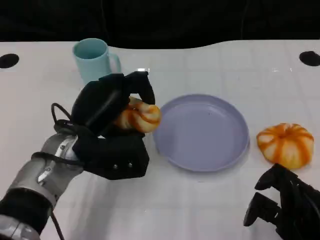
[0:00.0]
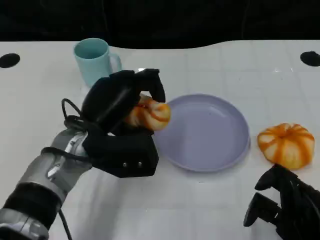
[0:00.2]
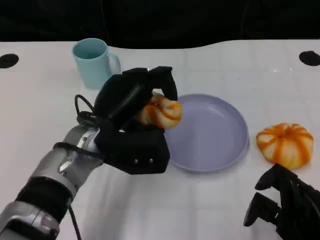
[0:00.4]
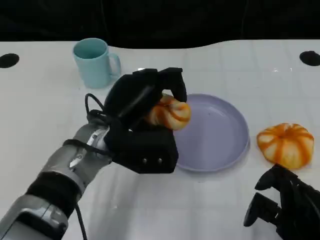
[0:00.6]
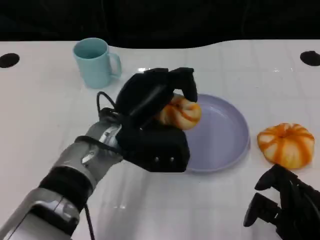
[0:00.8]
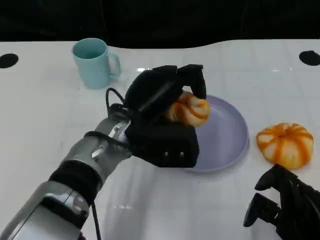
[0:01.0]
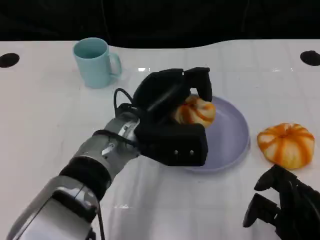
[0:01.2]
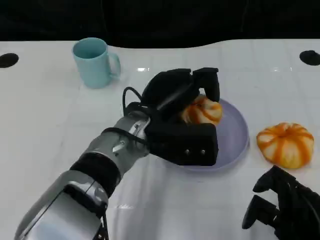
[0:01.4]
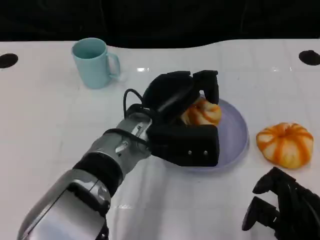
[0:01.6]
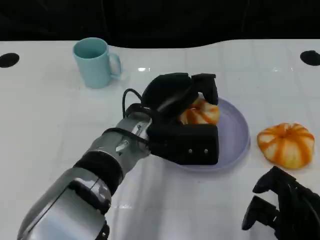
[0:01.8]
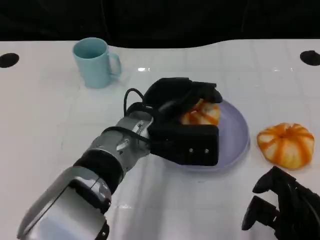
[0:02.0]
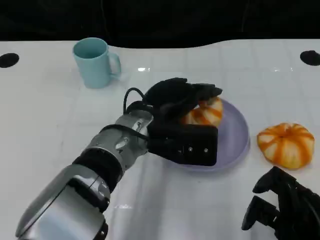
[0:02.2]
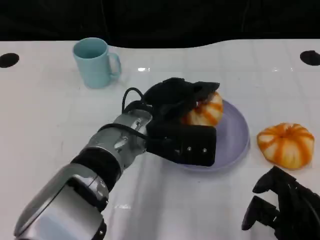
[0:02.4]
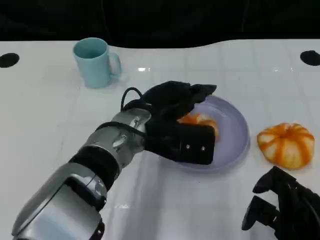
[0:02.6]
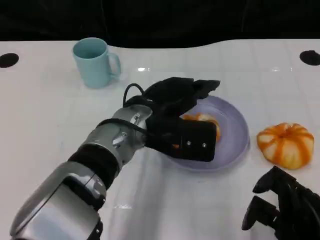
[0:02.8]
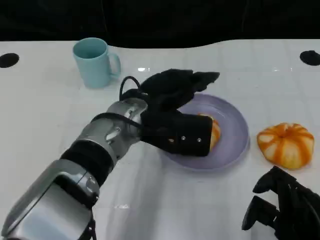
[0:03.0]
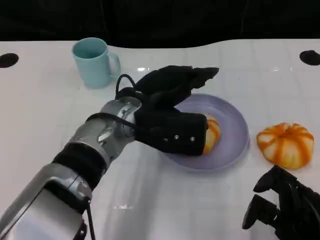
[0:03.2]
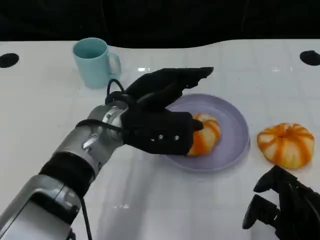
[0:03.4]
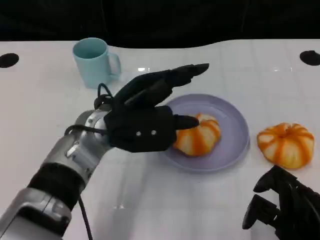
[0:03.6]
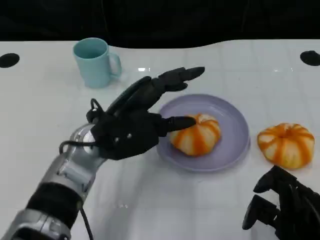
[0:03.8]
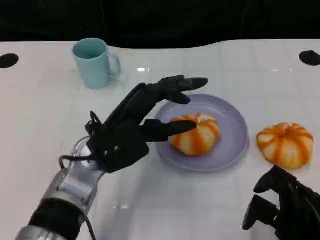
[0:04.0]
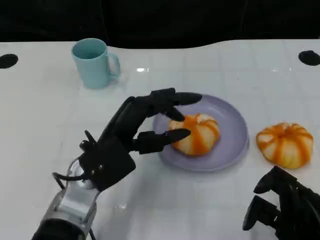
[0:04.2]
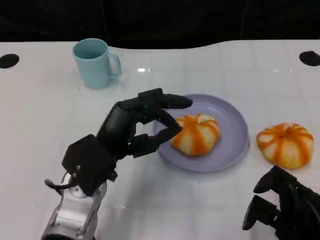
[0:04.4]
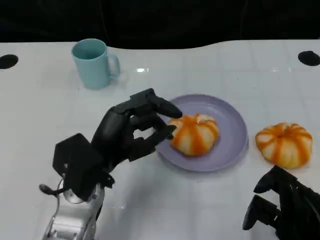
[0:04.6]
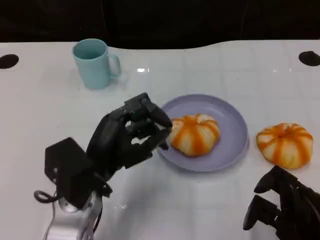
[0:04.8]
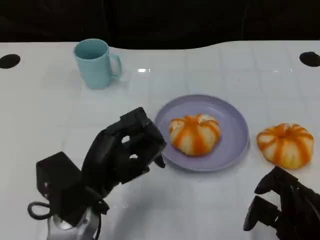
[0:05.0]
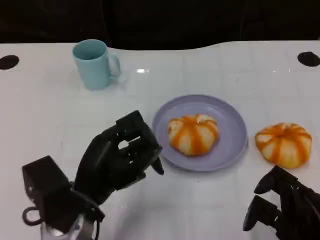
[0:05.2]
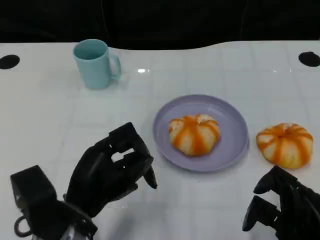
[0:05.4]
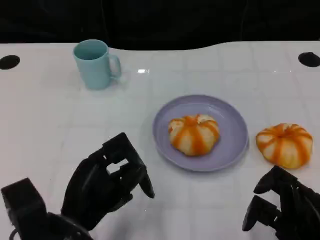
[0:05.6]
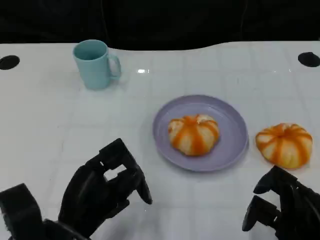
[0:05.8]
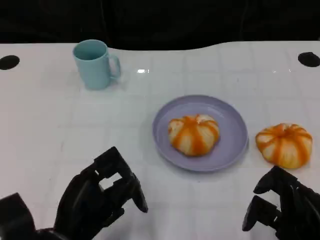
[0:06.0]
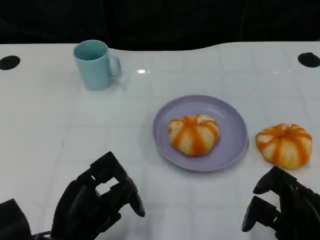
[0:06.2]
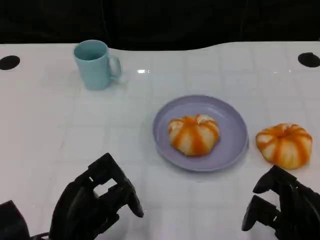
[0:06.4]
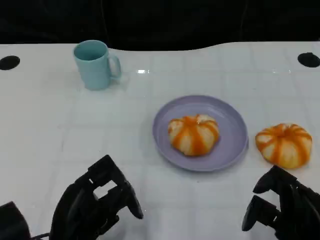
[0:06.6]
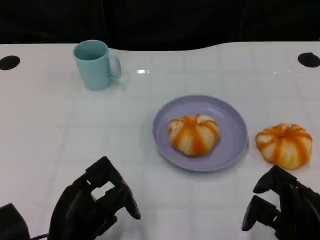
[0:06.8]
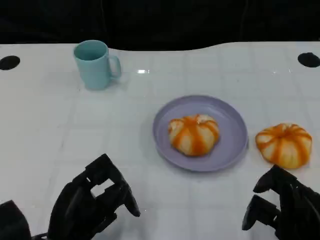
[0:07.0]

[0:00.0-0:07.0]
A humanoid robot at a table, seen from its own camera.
Task of the whole recording: Grasp the bread from the table and place it into the plate.
0:00.0 to 0:01.4: The left hand is displaced to the right by some 10 cm.
0:02.8 to 0:04.2: The left hand goes approximately 10 cm to the left and backward.
0:04.2 to 0:05.6: The left hand goes some 10 cm backward.
0:05.6 to 0:07.0: The hands stay close to where they were, moving slightly.

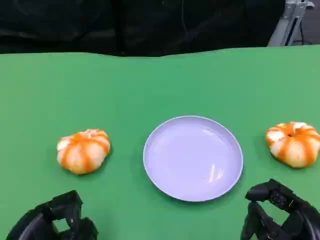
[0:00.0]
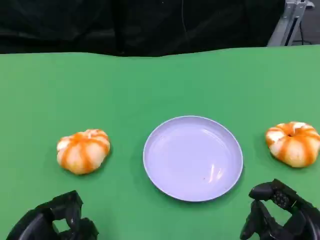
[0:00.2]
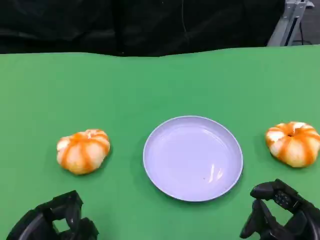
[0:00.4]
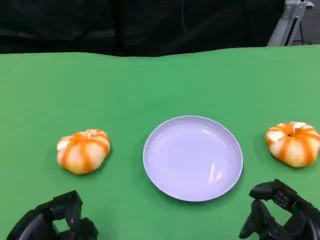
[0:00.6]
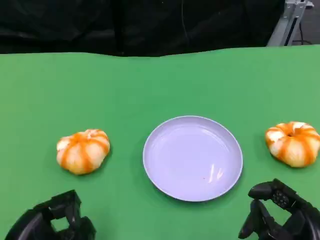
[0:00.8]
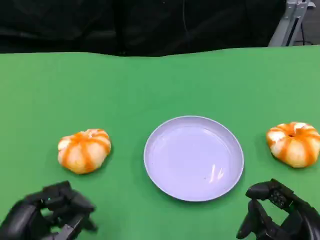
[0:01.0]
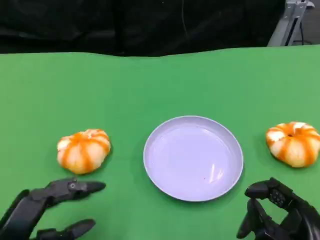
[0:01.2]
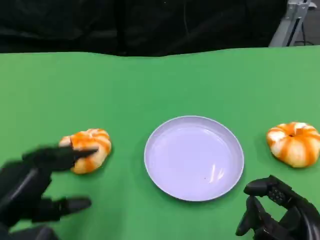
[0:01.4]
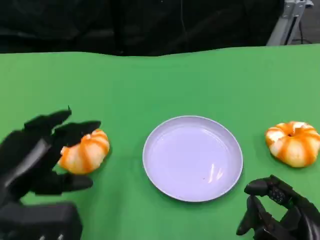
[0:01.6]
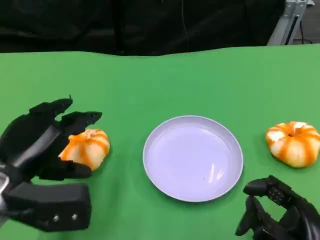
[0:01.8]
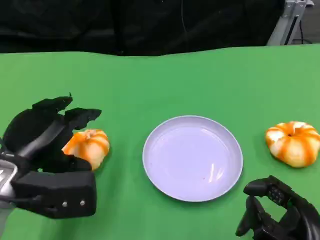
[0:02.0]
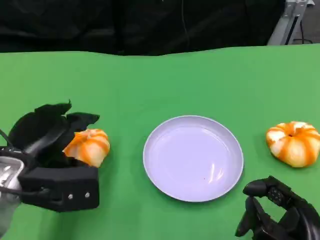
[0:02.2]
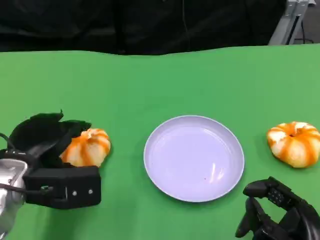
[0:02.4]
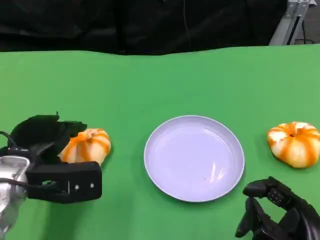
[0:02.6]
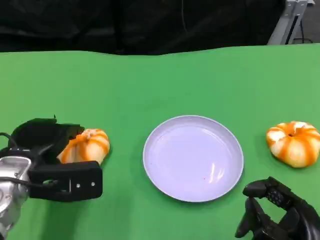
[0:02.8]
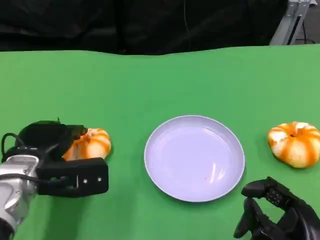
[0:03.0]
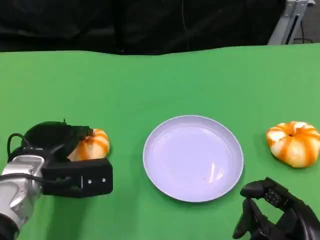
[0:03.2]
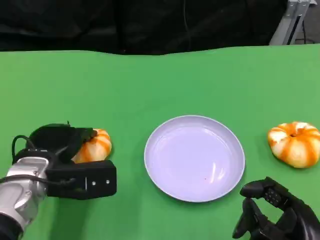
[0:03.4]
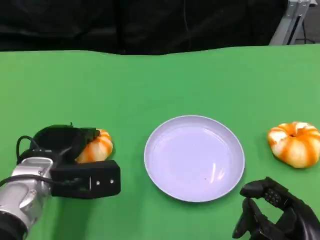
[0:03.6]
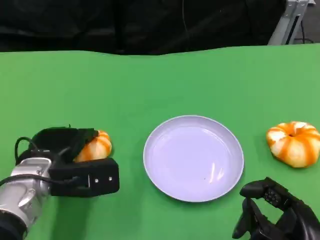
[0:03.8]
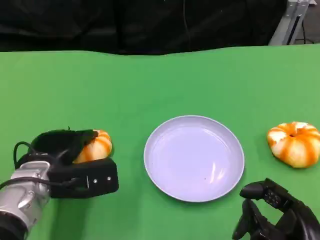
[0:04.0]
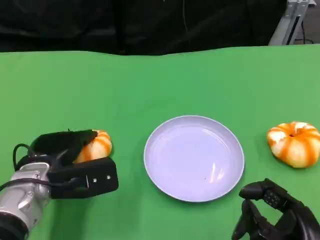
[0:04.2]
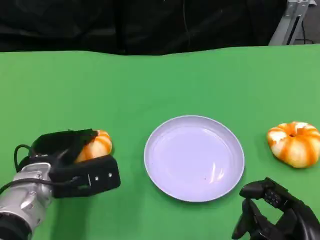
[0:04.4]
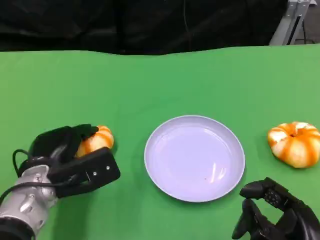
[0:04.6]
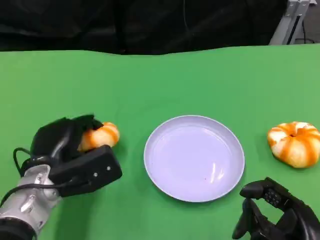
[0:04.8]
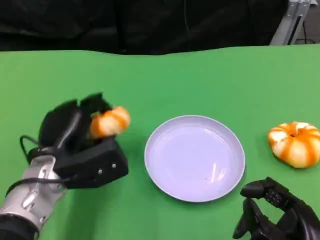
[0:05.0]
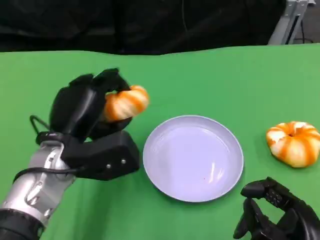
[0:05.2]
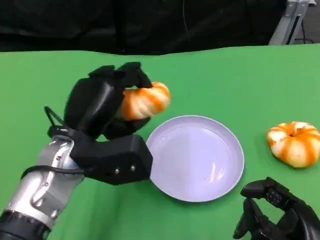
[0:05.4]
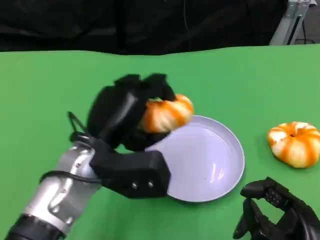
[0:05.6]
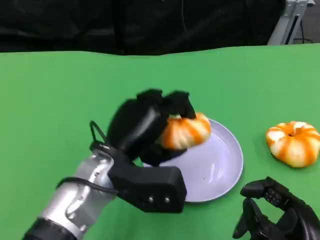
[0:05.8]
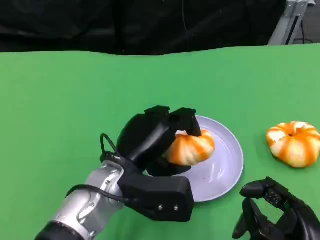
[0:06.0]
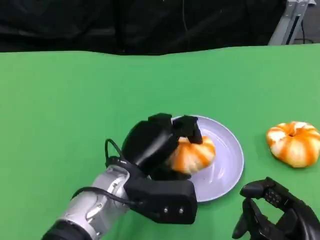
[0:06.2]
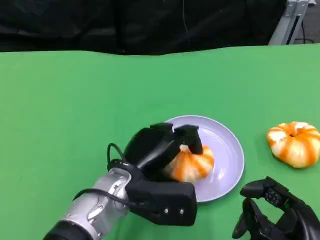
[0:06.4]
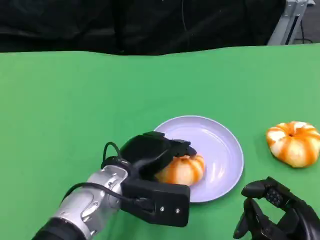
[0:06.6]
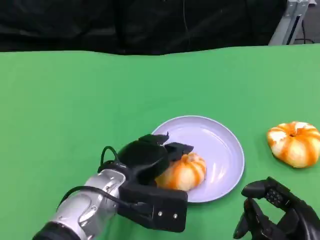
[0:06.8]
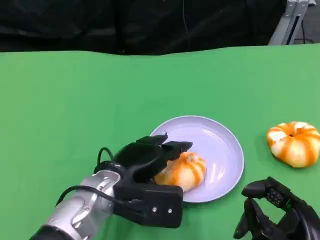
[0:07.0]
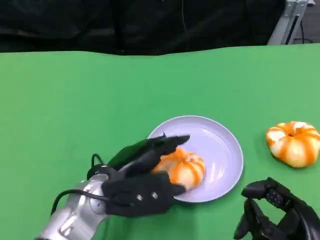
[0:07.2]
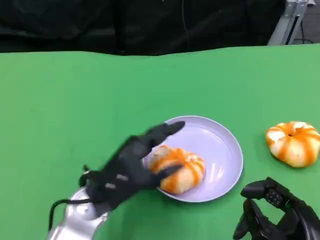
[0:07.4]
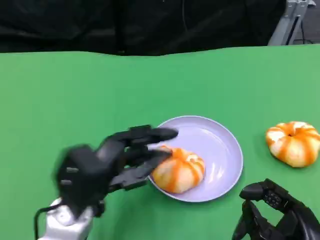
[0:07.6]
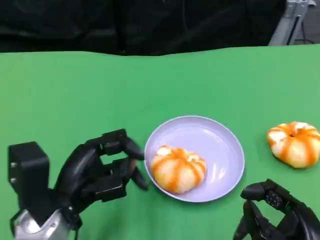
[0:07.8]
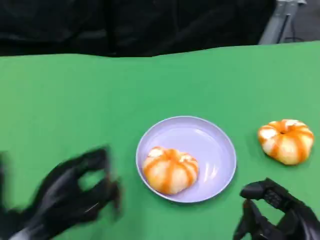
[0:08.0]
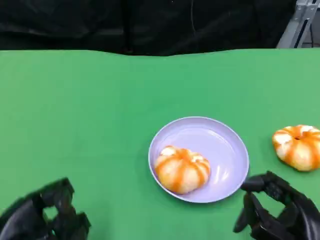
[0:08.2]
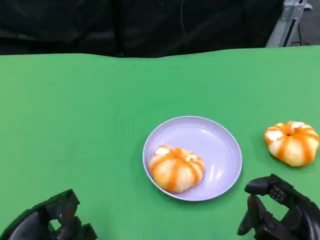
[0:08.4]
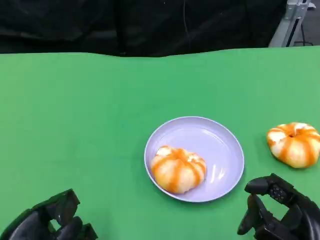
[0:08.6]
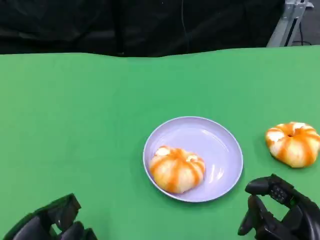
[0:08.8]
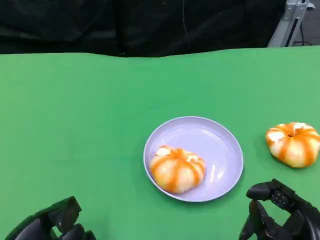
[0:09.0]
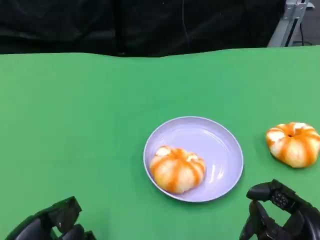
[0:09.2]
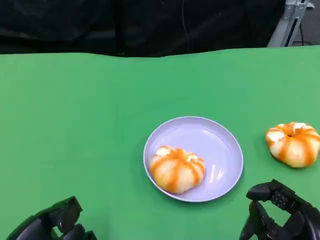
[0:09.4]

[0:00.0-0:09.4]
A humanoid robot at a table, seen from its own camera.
Task of the whole recording: Grasp the bread from the table and place it into the plate.
0:00.0 to 0:01.6: The left hand is displaced forward and upward by roughly 10 cm.
0:01.6 to 0:03.2: The left hand moves forward, some 5 cm.
0:04.8 to 0:06.2: The left hand moves to the right, some 10 cm.
0:06.2 to 0:07.8: The left hand is displaced to the left by some 10 cm.
0:07.8 to 0:09.4: The left hand heads to the left and backward, covering about 10 cm.

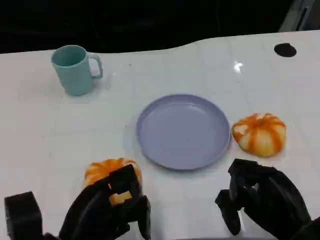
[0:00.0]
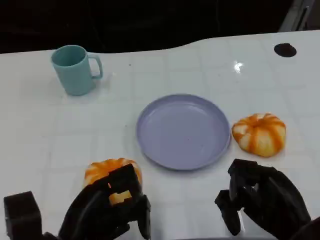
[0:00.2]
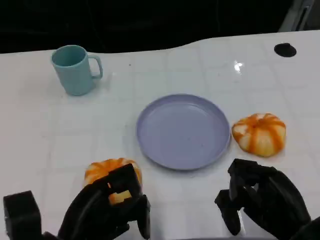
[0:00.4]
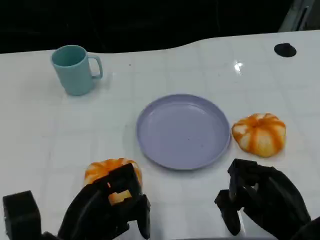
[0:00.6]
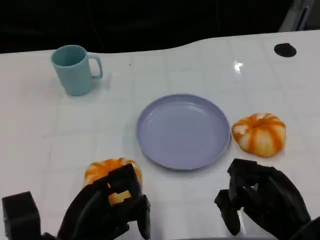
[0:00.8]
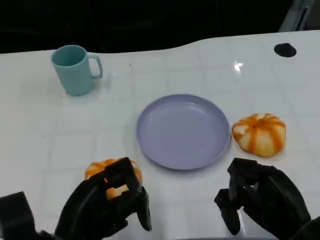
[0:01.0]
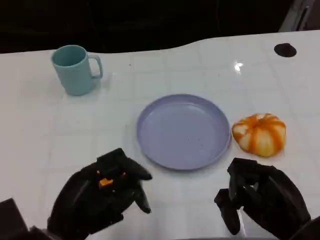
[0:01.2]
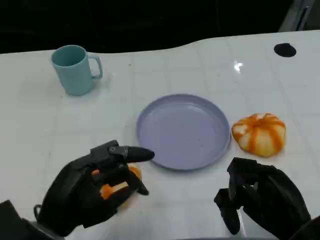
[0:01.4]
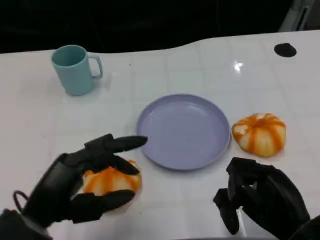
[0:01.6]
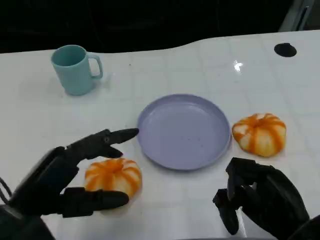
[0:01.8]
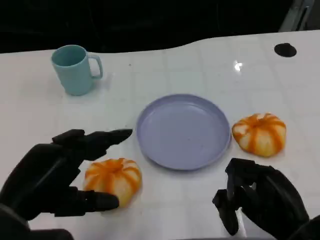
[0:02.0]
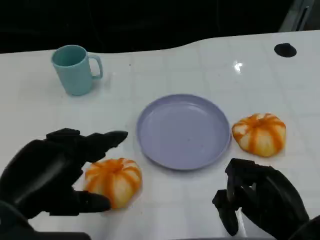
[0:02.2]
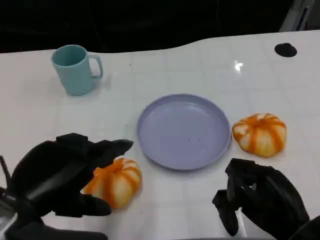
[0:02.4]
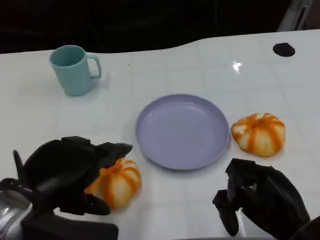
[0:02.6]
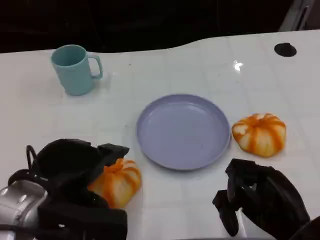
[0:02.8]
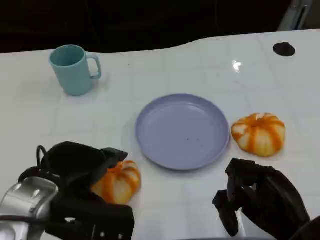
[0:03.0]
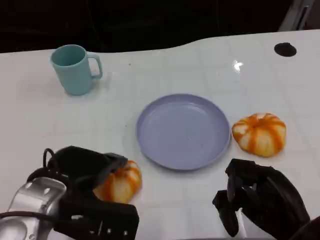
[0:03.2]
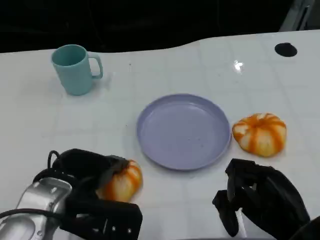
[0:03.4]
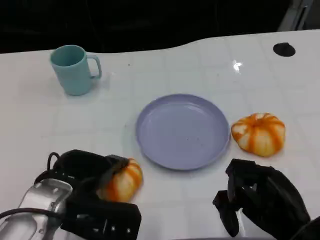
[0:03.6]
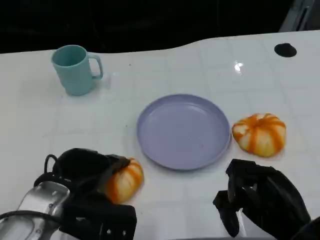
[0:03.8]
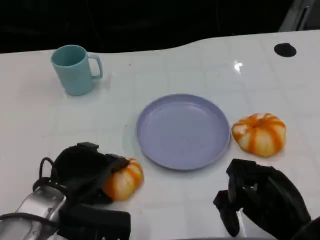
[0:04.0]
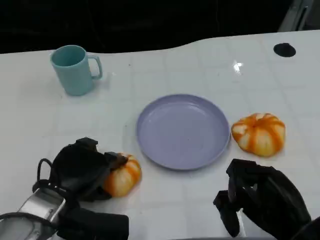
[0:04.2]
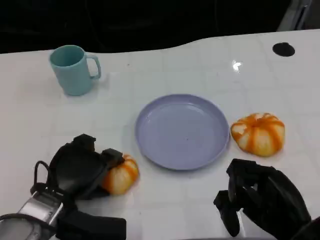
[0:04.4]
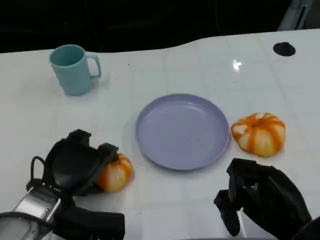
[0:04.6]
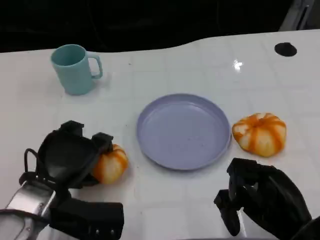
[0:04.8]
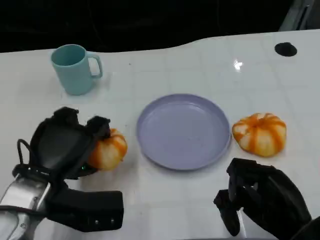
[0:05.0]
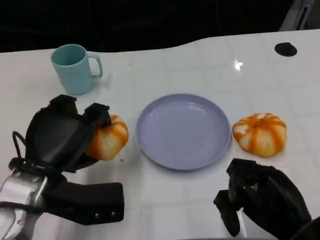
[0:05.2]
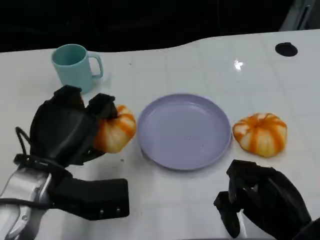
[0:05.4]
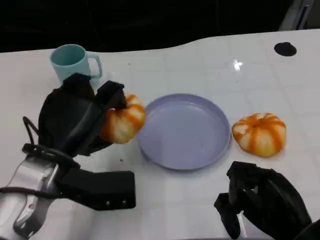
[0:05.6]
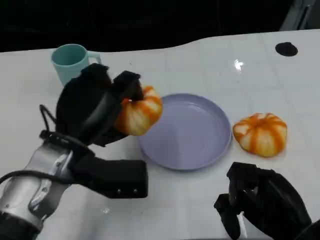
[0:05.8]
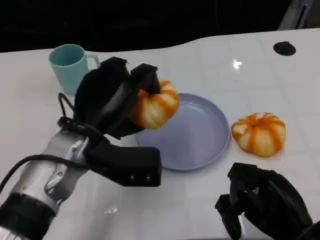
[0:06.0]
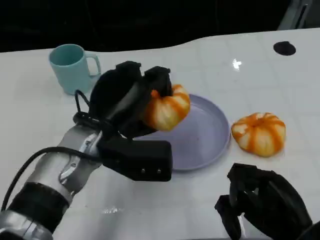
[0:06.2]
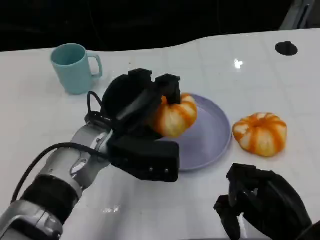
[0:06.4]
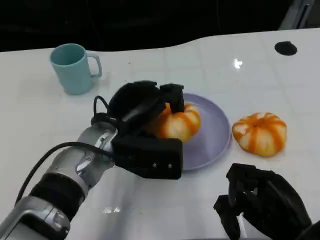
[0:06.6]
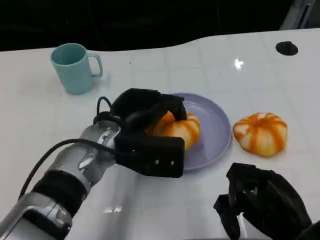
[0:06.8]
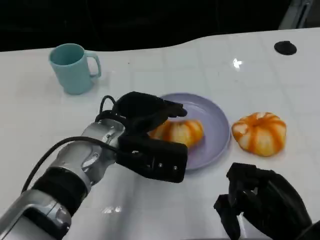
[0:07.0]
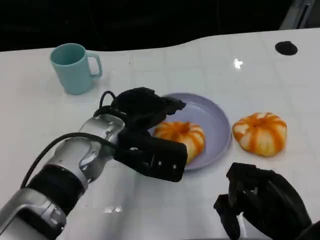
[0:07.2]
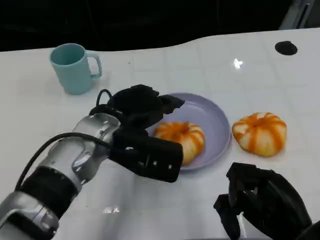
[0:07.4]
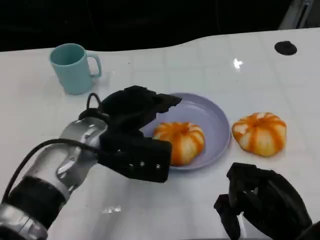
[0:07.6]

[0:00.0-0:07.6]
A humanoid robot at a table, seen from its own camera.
Task of the whole recording: Grasp the bread from the table and place it into the plate.
0:00.0 to 0:01.6: The left hand moves upward, about 5 cm.
0:01.6 to 0:03.0: The left hand changes place by some 5 cm.
0:03.0 to 0:04.6: The left hand shifts about 5 cm downward.
0:04.6 to 0:06.0: The left hand moves upward and to the right, approximately 10 cm.
